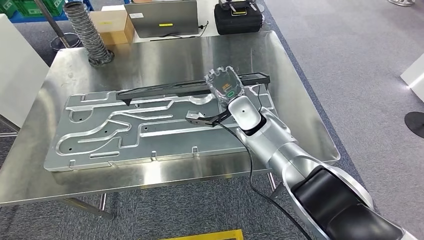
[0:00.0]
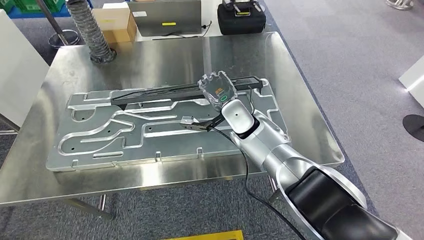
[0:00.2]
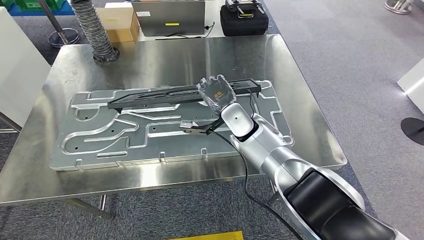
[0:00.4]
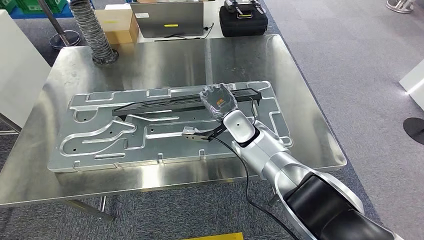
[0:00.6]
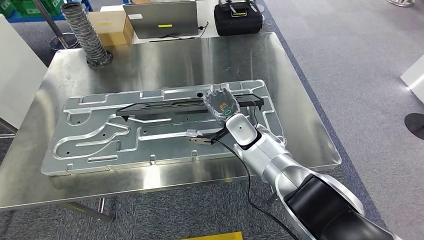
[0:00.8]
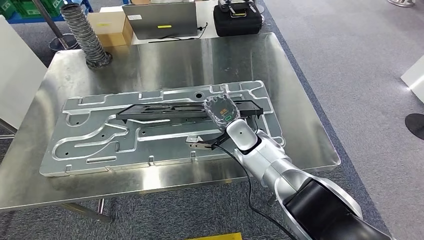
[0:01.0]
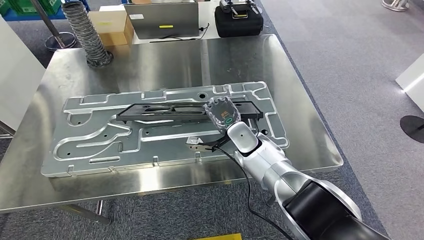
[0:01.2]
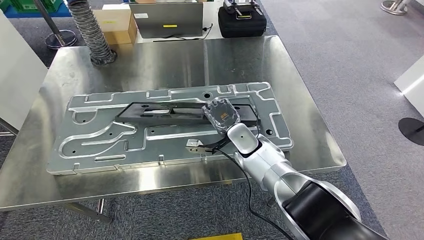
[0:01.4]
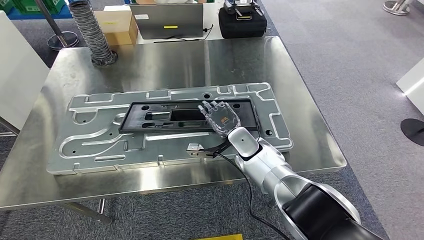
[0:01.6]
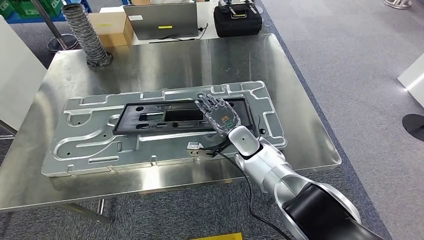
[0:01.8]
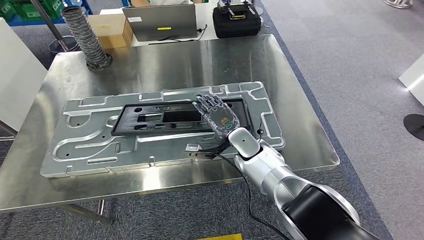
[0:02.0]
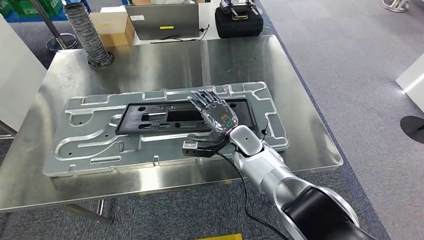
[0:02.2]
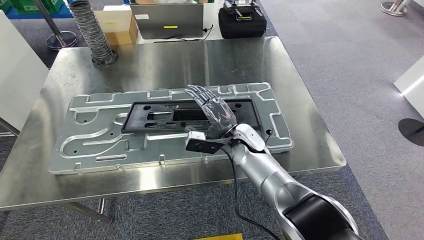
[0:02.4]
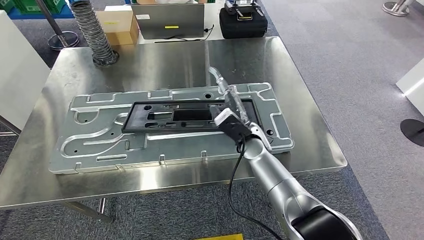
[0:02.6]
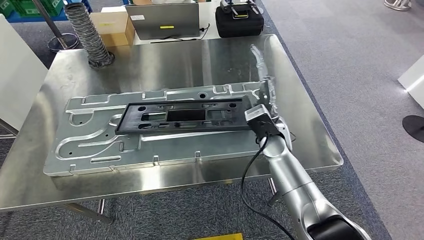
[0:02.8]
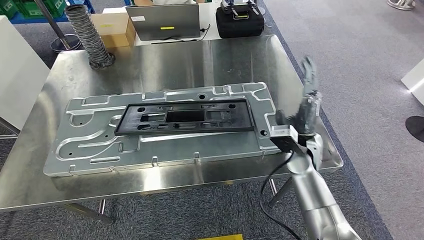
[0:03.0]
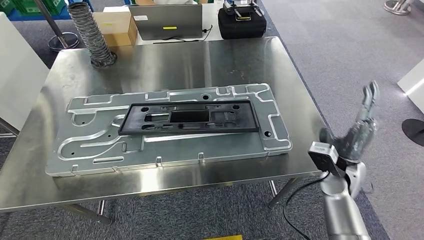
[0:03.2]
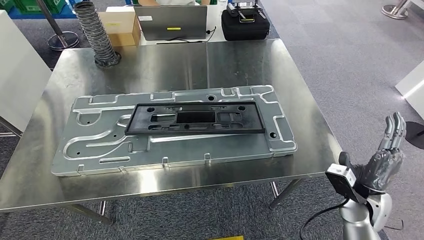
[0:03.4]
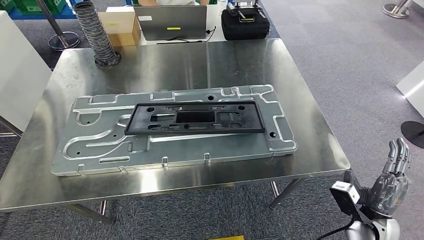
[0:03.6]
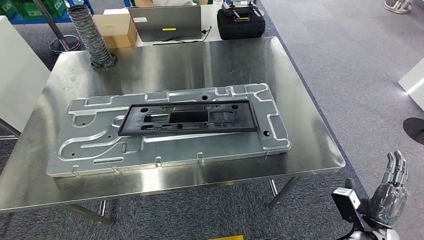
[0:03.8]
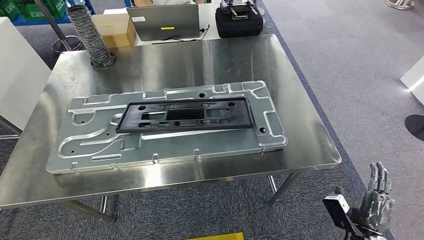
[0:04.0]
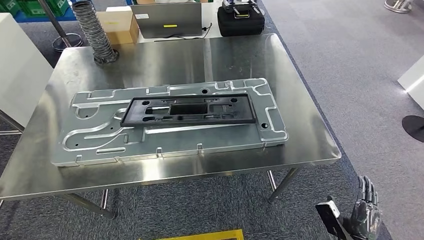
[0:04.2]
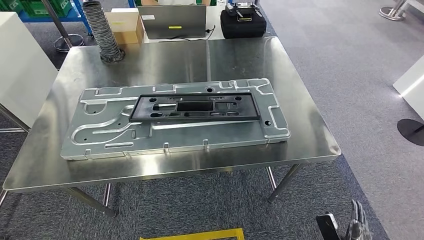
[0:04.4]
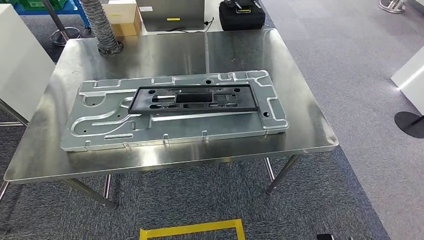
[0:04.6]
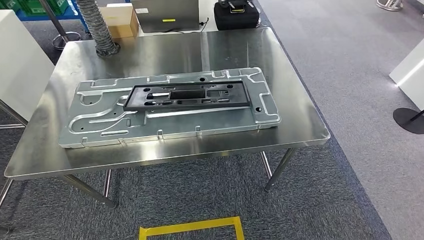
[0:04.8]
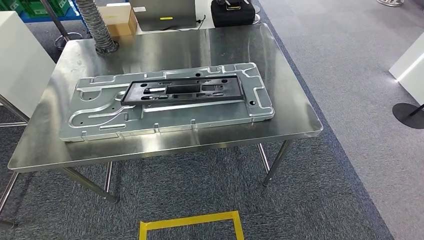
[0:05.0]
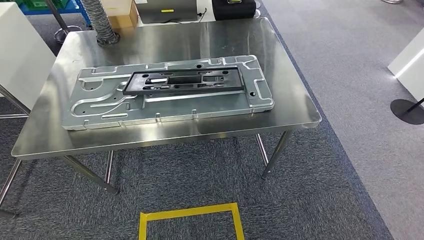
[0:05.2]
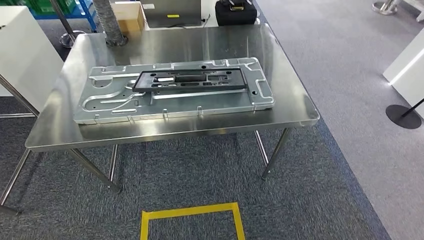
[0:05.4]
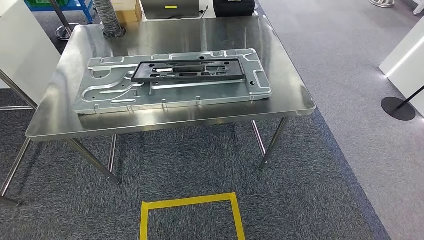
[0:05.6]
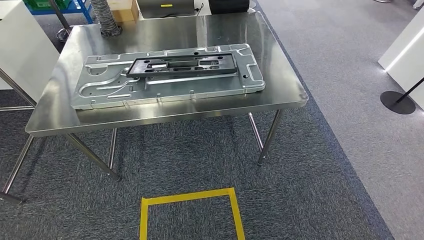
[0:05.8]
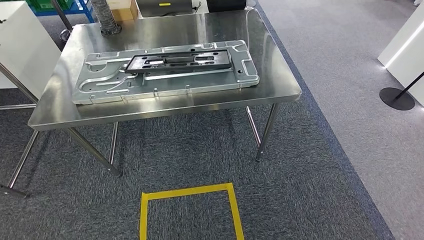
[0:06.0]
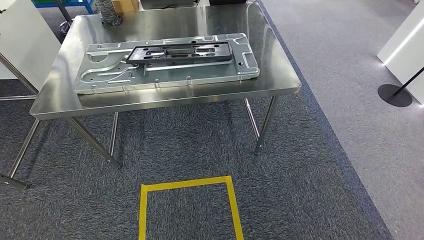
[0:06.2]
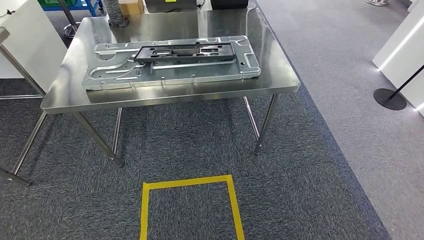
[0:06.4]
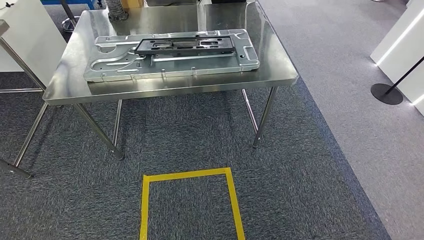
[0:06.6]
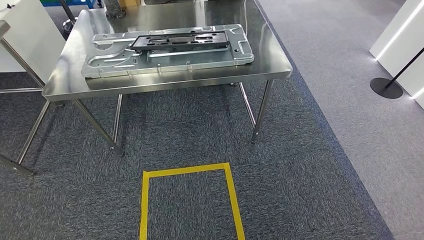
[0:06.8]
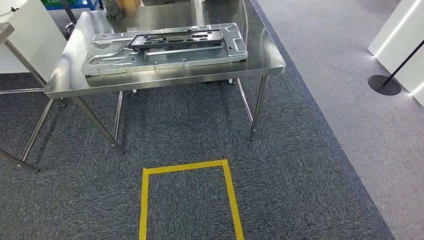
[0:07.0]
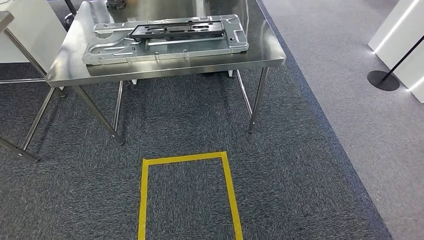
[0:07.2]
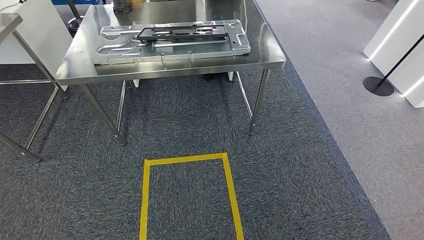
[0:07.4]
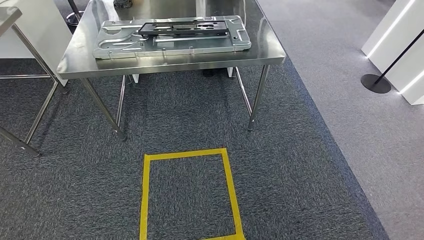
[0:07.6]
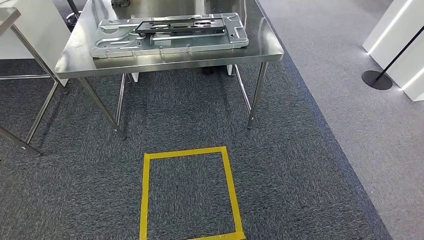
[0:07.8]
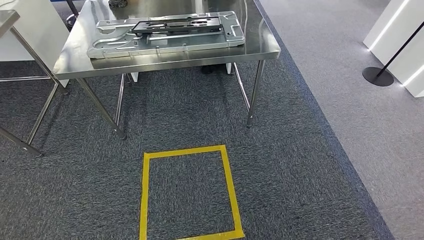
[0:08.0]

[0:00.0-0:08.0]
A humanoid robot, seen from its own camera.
Step, 0:00.0 to 0:02.6: Insert the large material into the corresponding slot on the workbench.
Step, 0:03.8 to 0:08.0: Return to the initial position at the shelf.
0:01.6 to 0:03.2: The right hand heads to the right and backward, covering some 25 cm.
